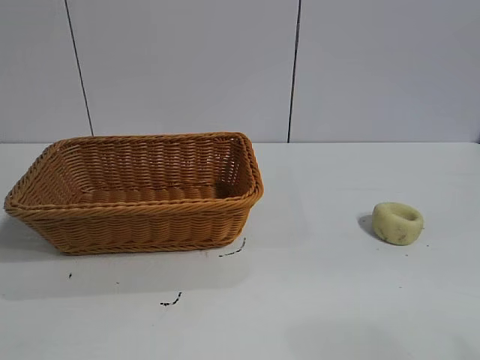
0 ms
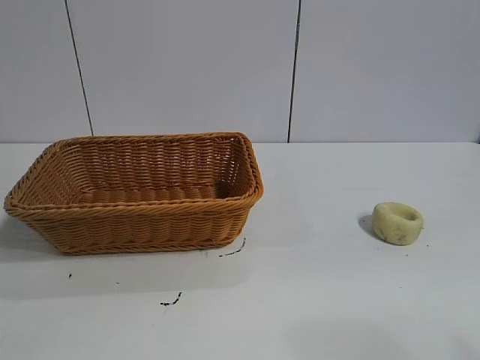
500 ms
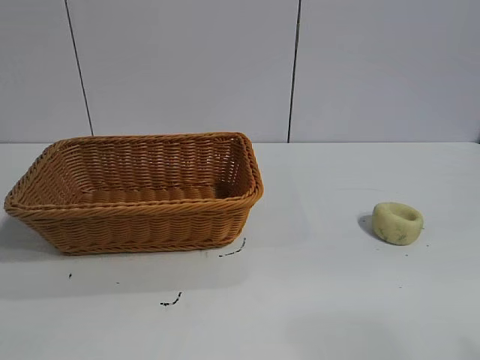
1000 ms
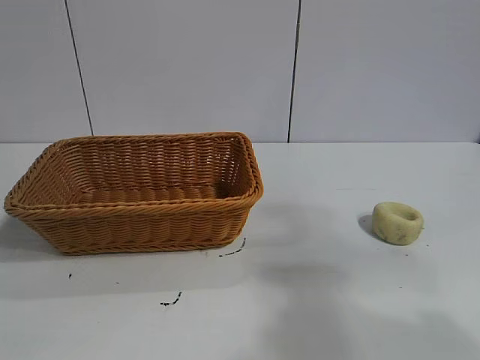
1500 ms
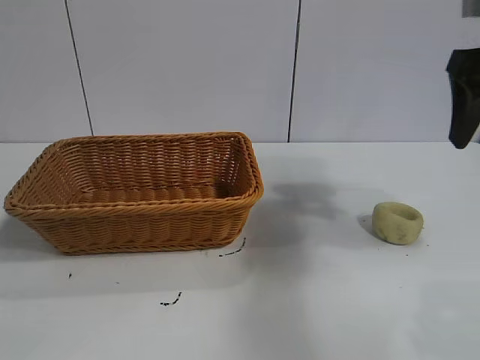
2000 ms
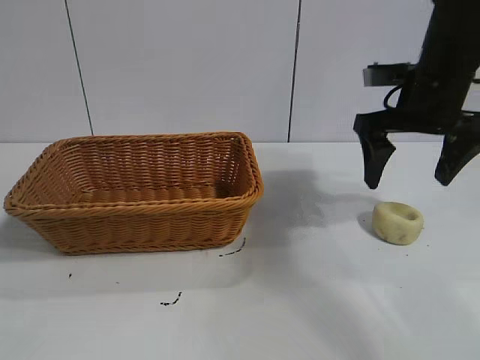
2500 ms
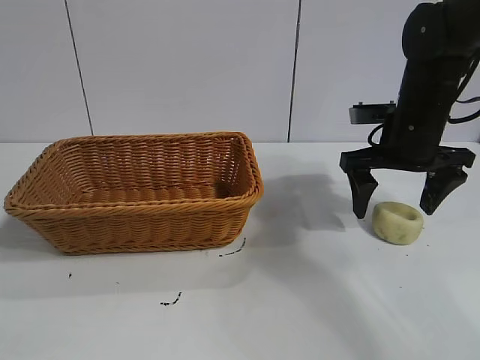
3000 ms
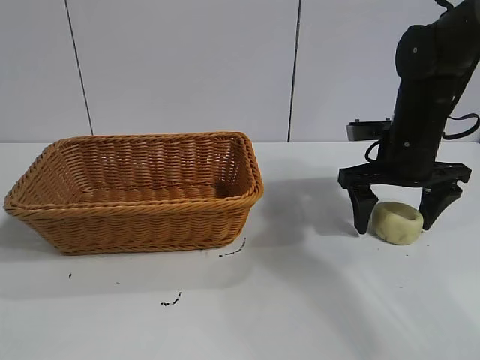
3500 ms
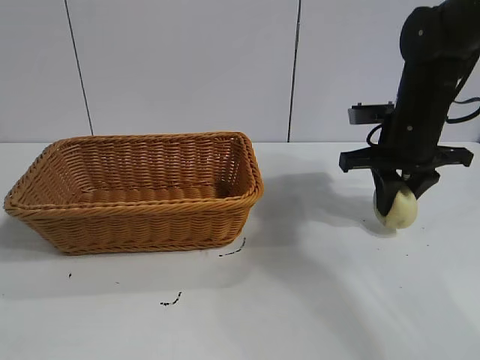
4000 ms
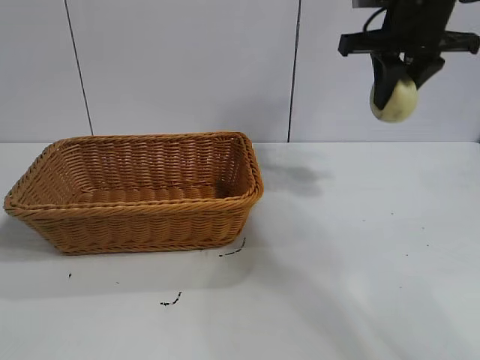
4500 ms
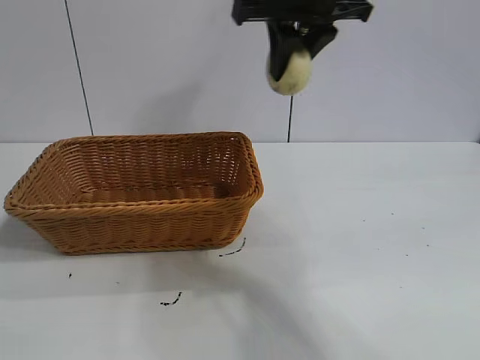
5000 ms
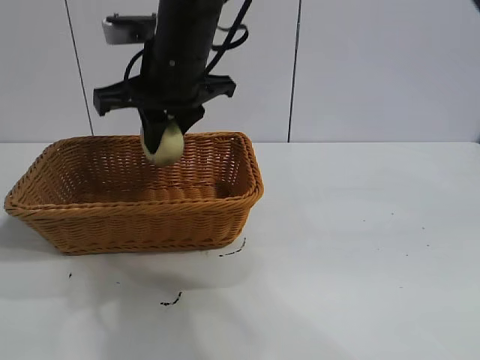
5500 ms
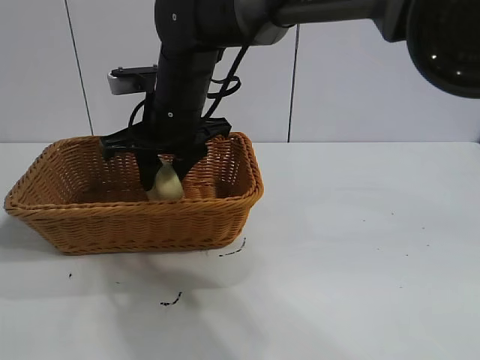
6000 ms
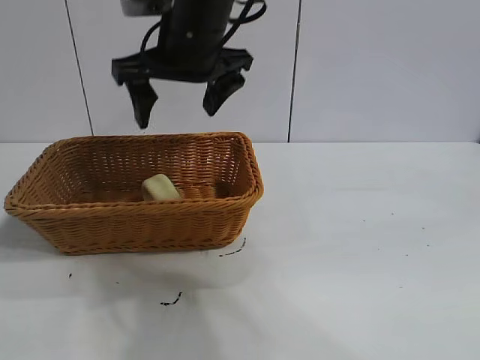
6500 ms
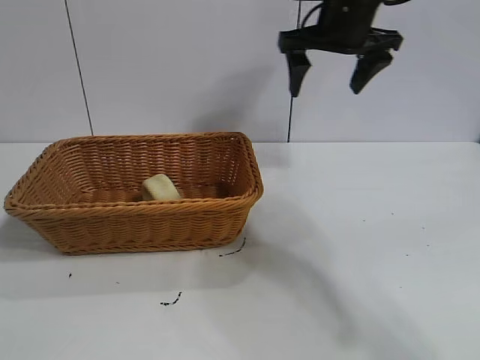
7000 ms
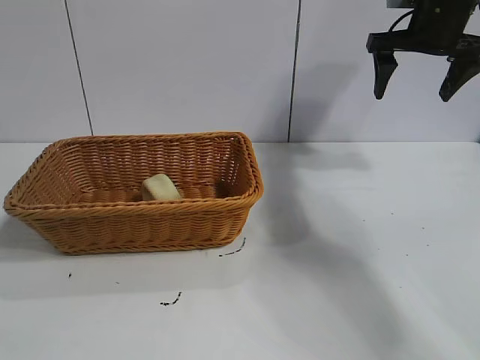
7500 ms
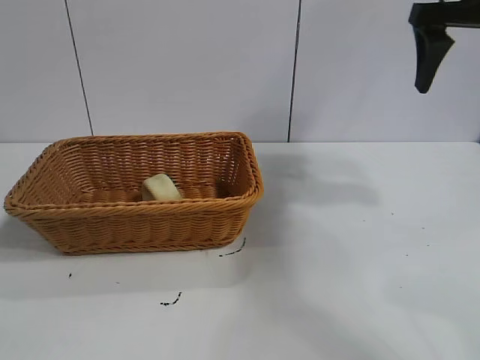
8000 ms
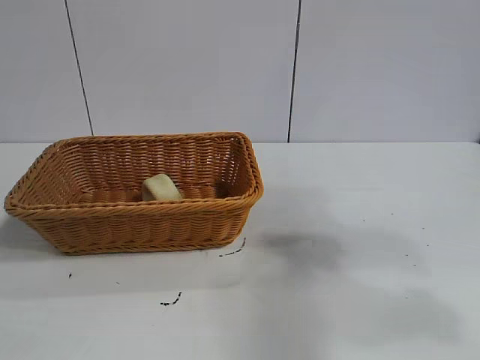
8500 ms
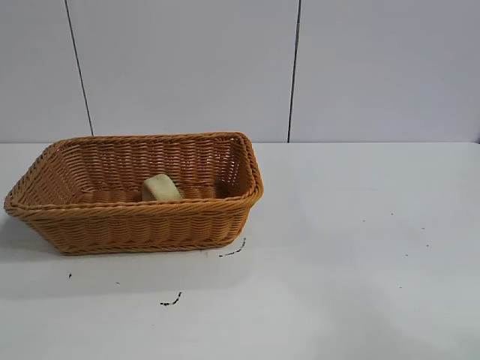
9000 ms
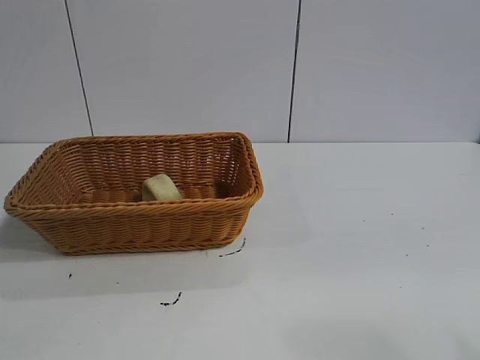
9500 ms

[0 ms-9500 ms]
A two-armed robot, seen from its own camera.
Task of the whole recording: pick up the egg yolk pastry and put it into the basket.
Step, 1000 ms to 3500 ms: Grasp egg yolk pastry with right gripper.
Step, 4000 ms to 6000 ms: Place the egg yolk pastry in the basket with right gripper.

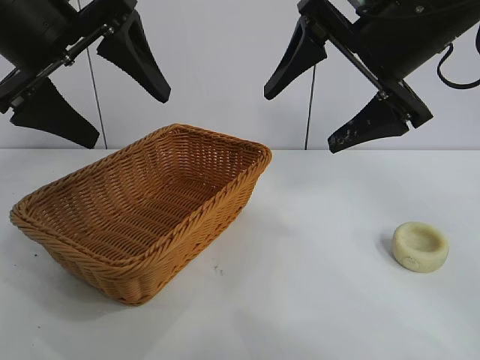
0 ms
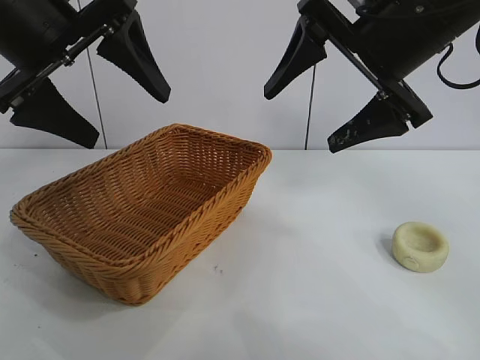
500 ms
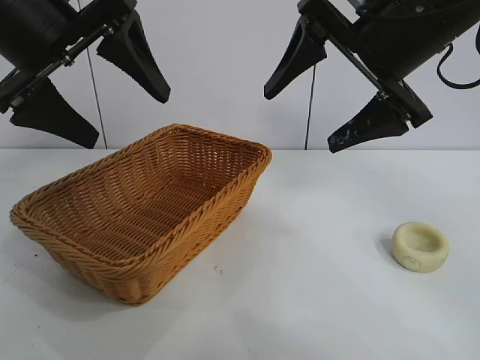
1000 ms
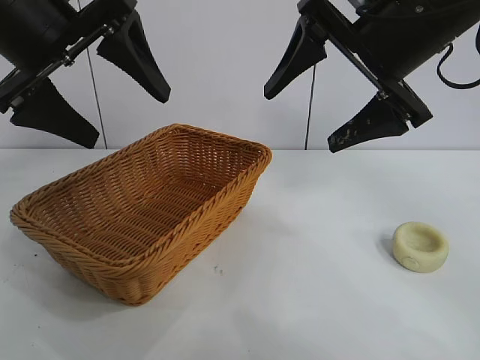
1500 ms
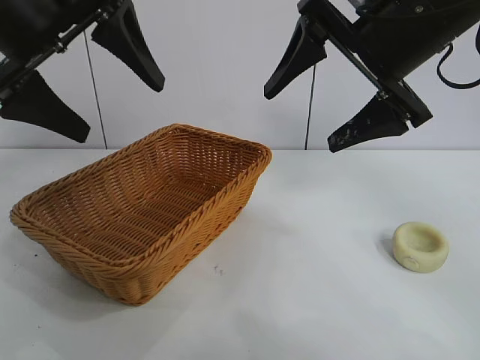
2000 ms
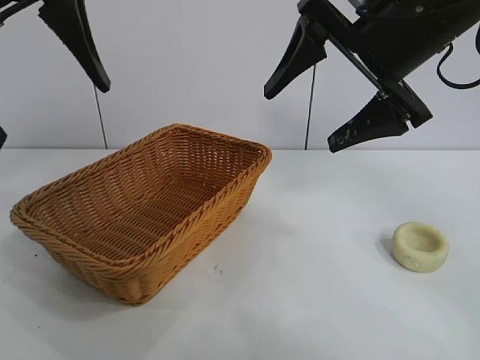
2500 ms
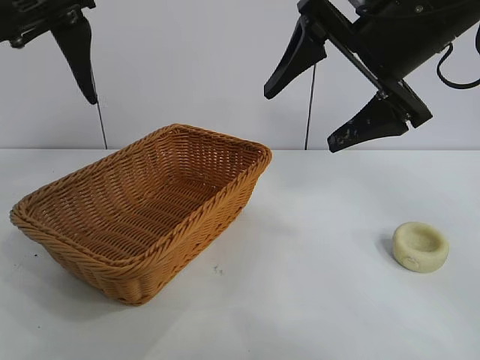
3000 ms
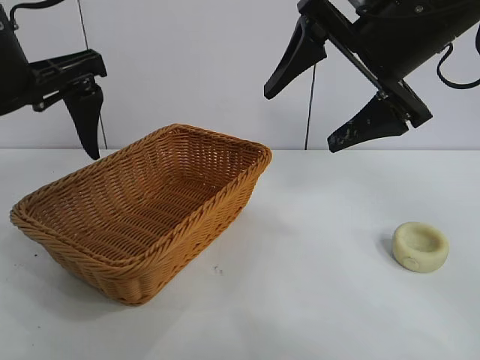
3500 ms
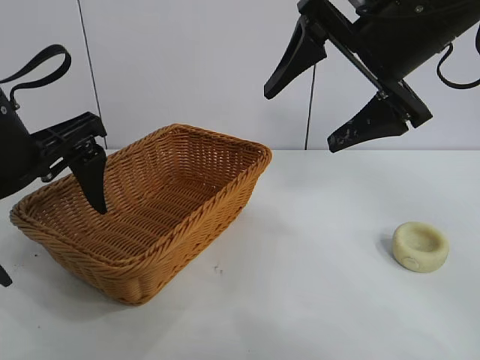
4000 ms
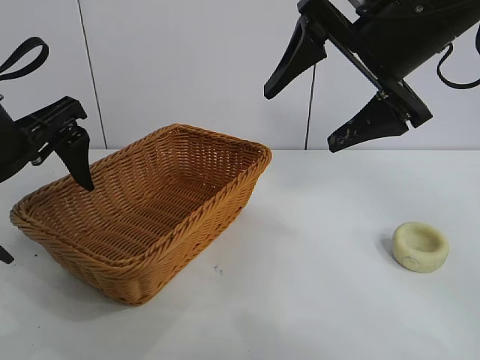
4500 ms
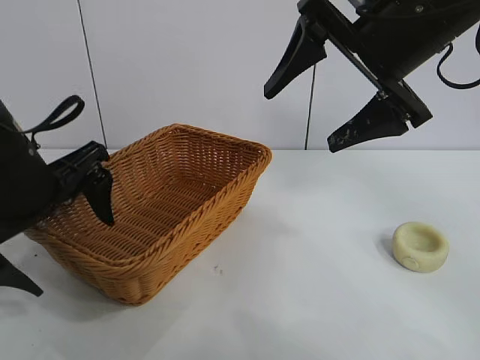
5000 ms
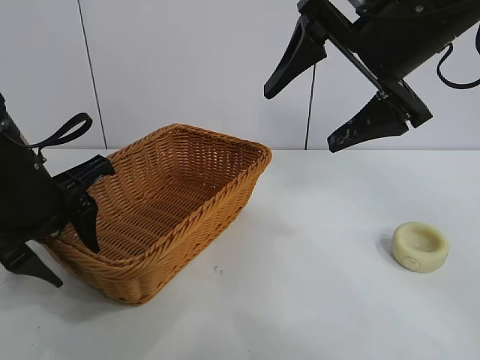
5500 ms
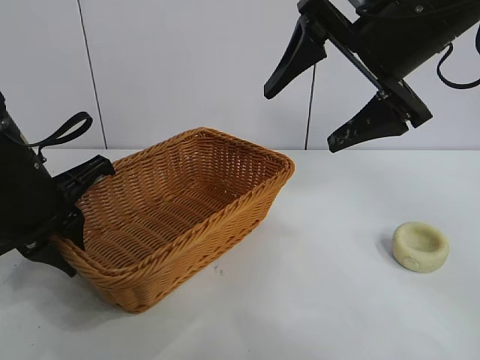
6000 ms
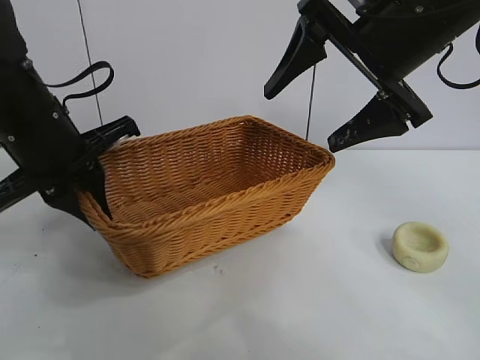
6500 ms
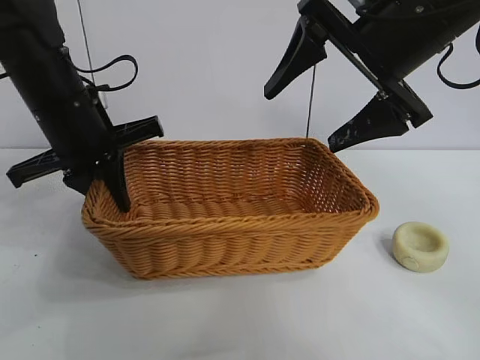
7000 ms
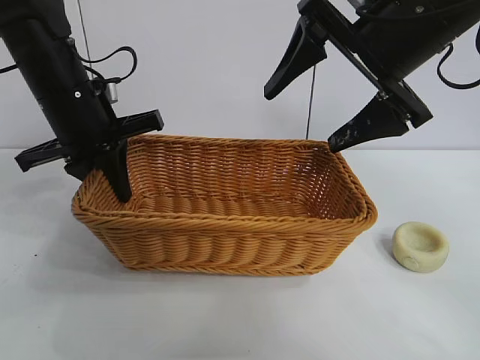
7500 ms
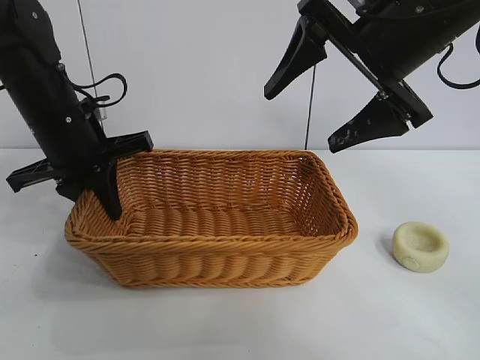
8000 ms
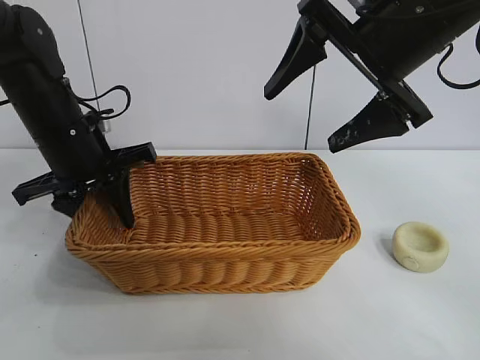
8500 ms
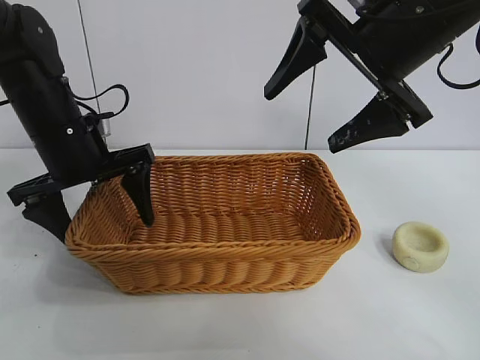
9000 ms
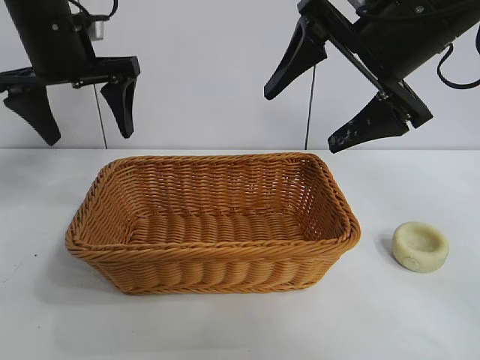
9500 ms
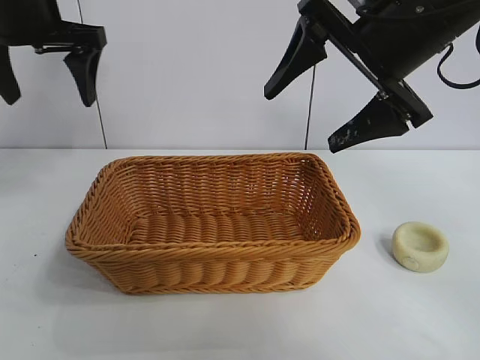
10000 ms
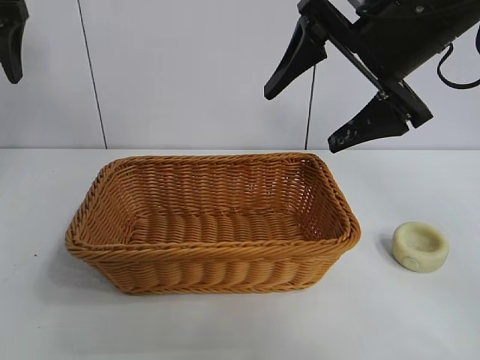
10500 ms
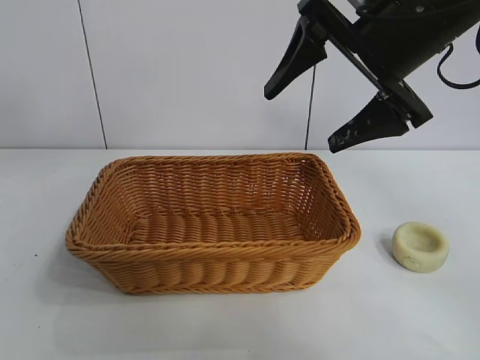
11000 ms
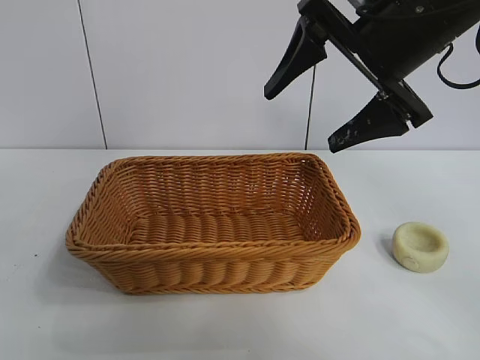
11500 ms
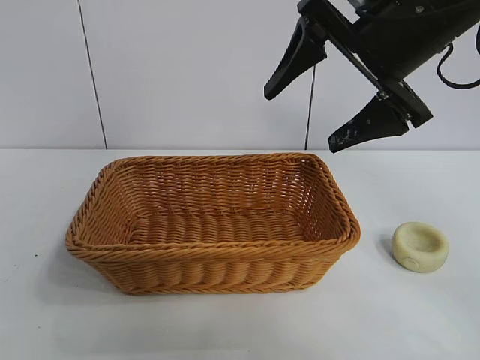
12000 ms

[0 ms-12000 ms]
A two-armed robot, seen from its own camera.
Task of the whole recording: pick up the egg yolk pastry and put it into the basket.
Step, 2000 ms to 5500 ms: Grasp the basket with left gripper.
Step, 6000 ms to 8500 ms: Place the basket in the center of view with left gripper.

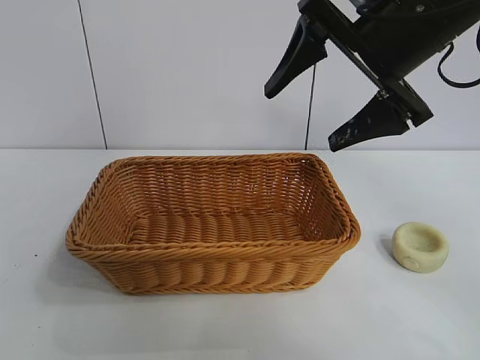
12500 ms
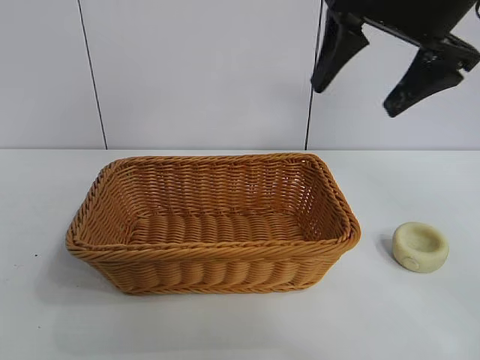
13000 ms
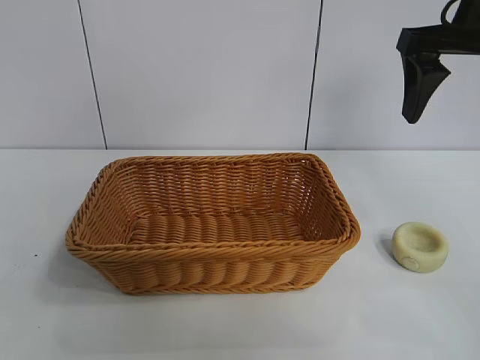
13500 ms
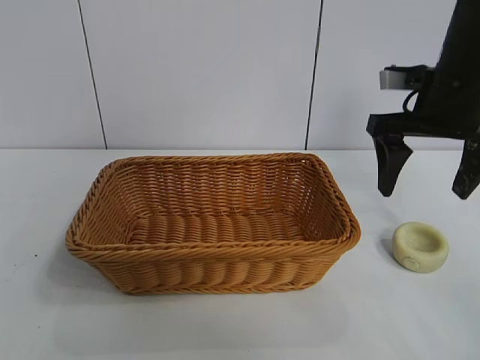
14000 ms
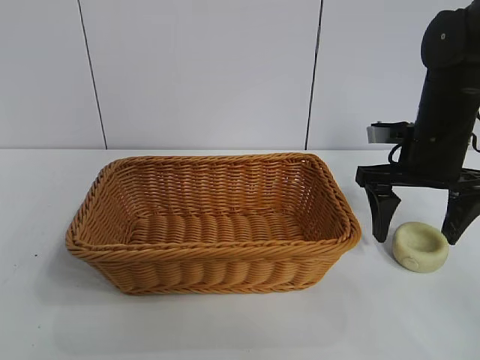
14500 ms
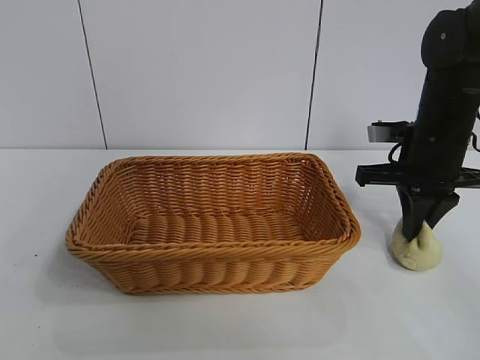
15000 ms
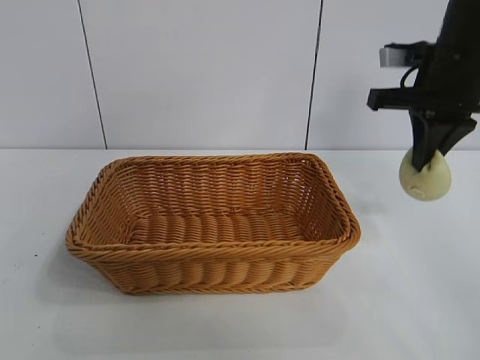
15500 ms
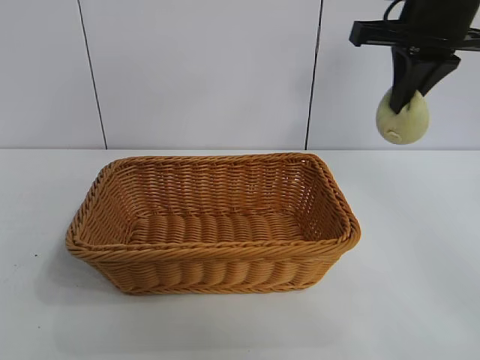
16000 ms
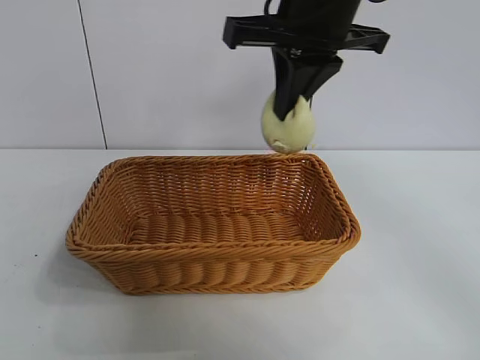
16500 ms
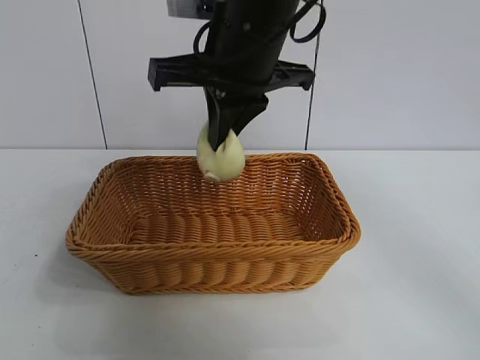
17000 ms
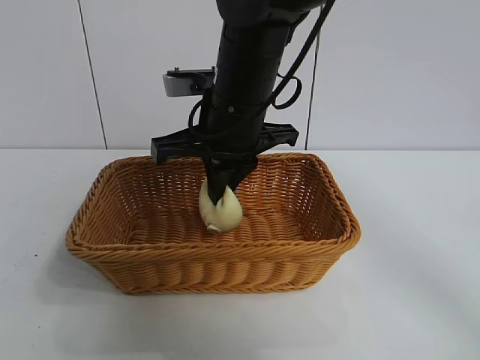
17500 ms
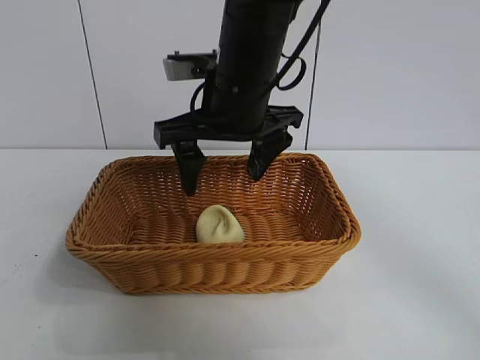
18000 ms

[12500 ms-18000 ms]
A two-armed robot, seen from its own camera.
Task of the whole recording: pick up the egg yolk pastry and put it into the basket.
Step, 12500 ms to 14500 ms: Grasp egg yolk pastry with right gripper.
Step, 15000 ms to 17500 ms: Place the egg yolk pastry in the basket with right gripper.
